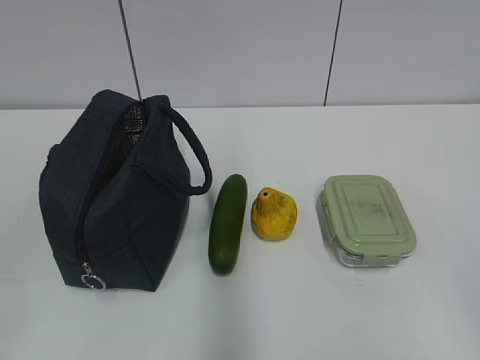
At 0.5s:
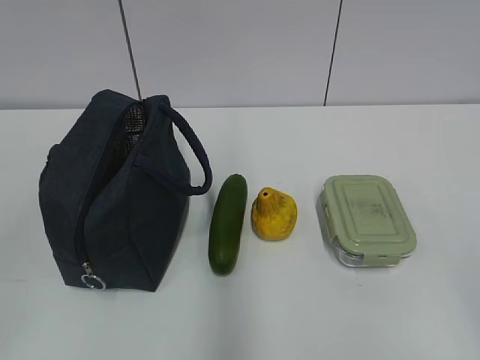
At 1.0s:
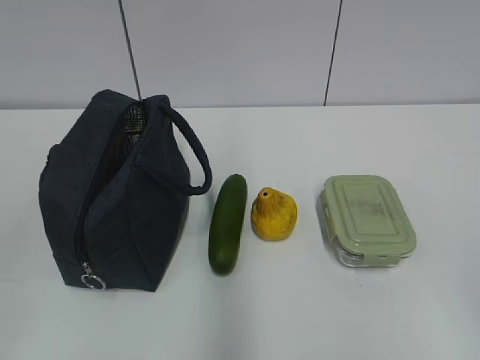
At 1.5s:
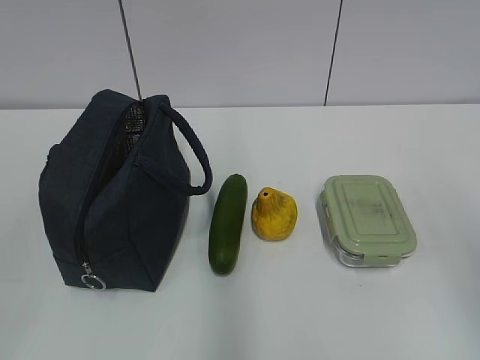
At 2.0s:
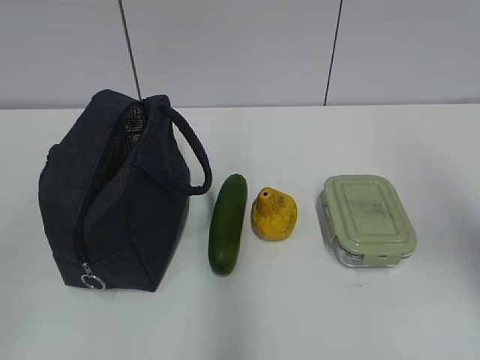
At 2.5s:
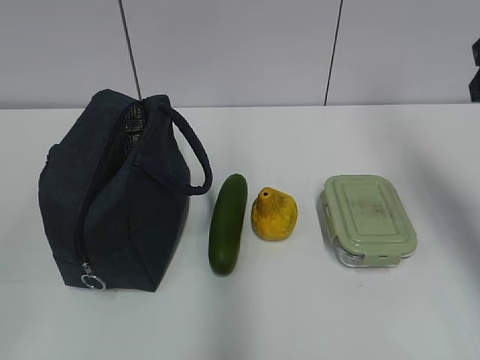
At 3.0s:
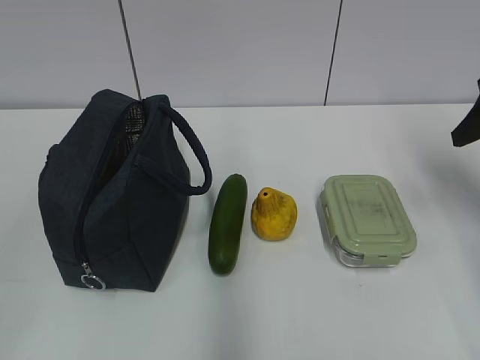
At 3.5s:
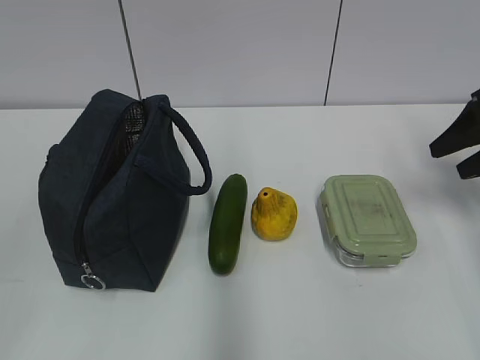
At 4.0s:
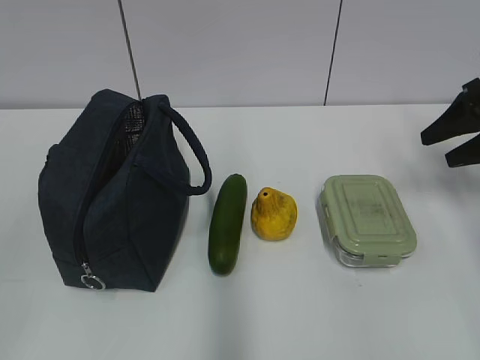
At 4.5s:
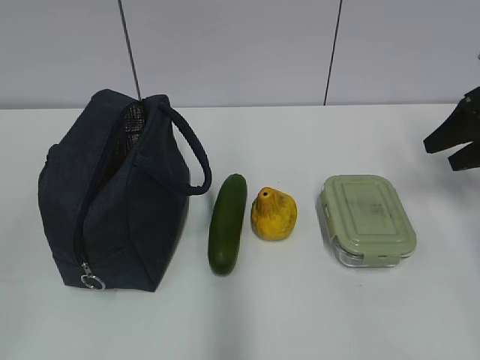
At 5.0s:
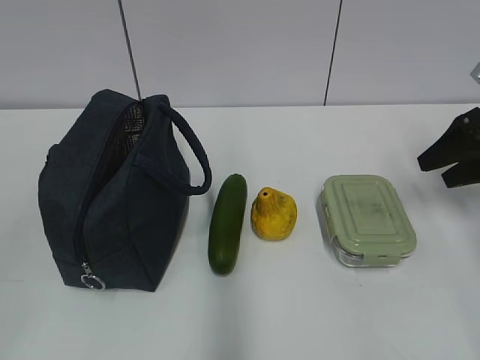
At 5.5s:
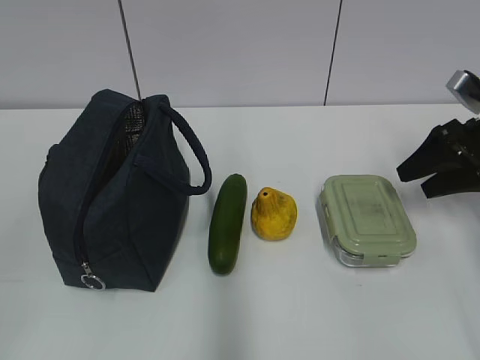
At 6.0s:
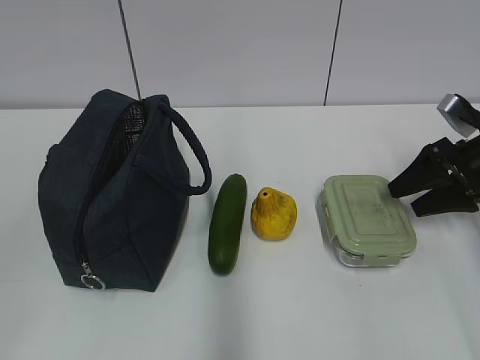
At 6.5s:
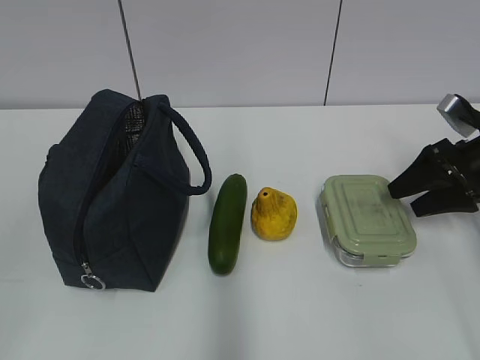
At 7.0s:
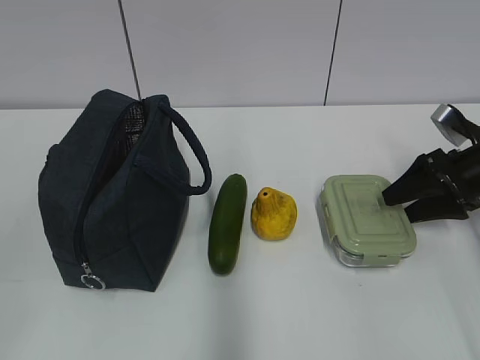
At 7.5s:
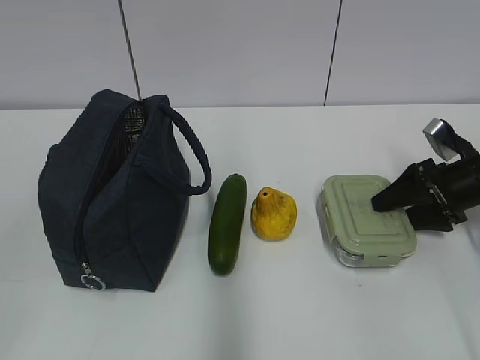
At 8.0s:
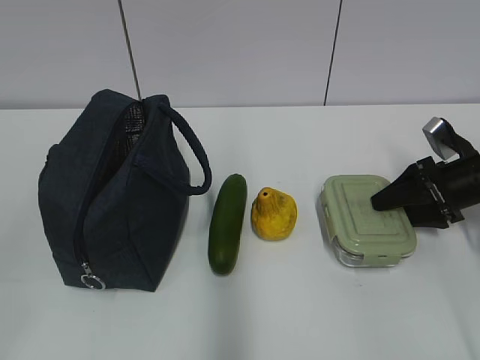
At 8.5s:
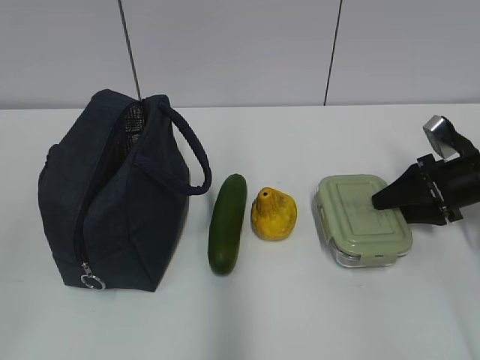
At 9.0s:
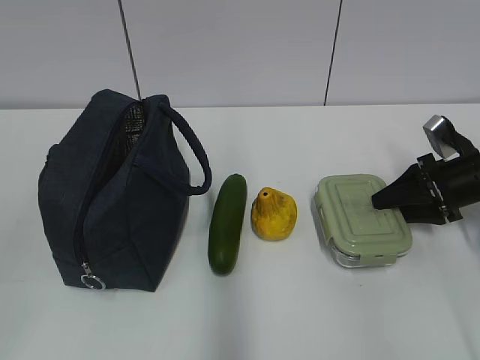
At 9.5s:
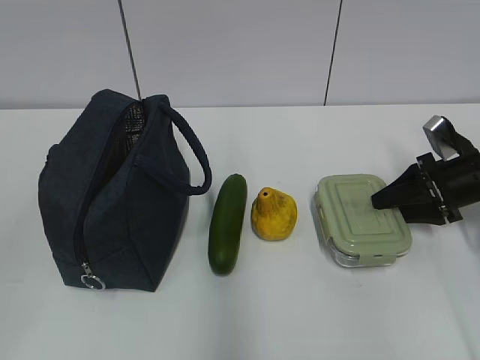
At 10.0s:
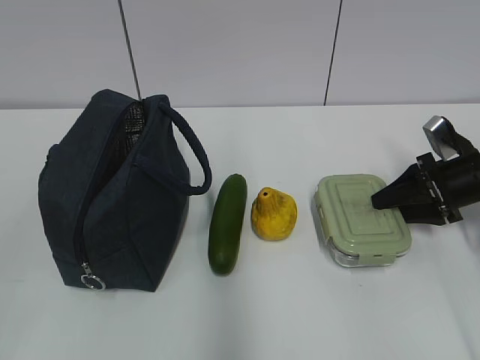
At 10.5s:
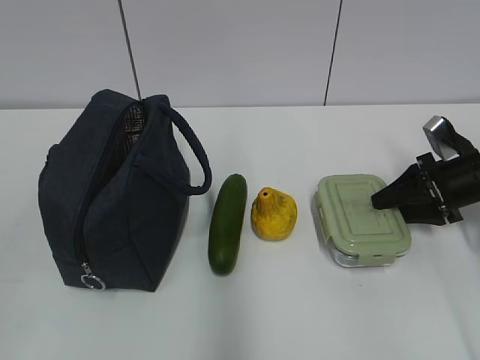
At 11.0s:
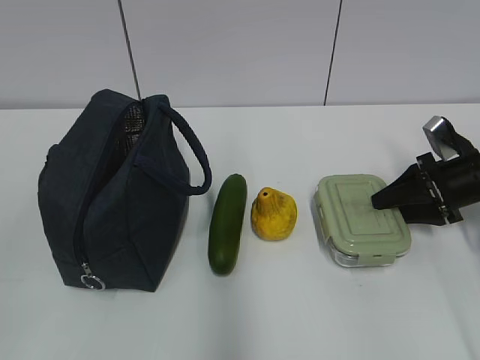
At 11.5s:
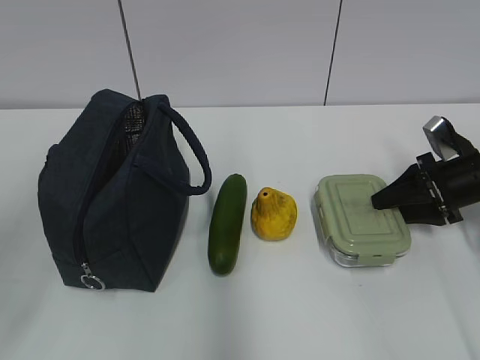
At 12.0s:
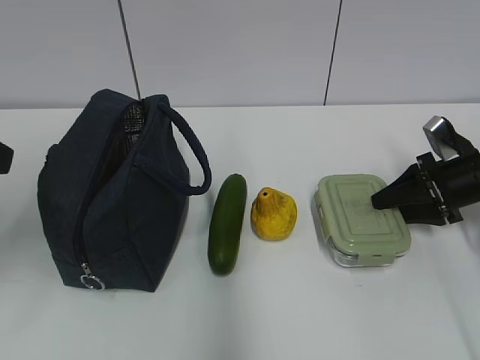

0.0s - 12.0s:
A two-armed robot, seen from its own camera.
Step, 0.0s - 11.5s: Grab the lunch box with your right hand.
2.0s - 4.0s: The right gripper goes some 25 cm forward, downward and to the right.
4.0s - 6.0s: The right gripper heads downward, covering approximately 5 cm.
6.0s - 8.0s: The right gripper shifts by about 5 cm.
8.0s - 10.0s: Both grippers stay put.
10.0s - 12.0s: The left gripper moves forward, some 20 cm.

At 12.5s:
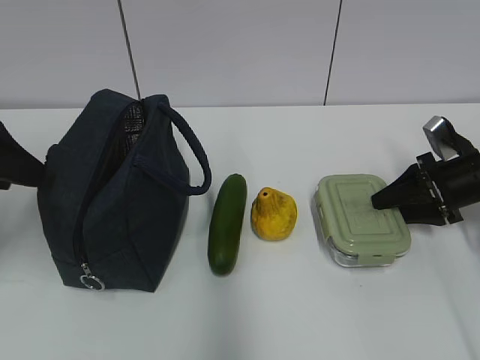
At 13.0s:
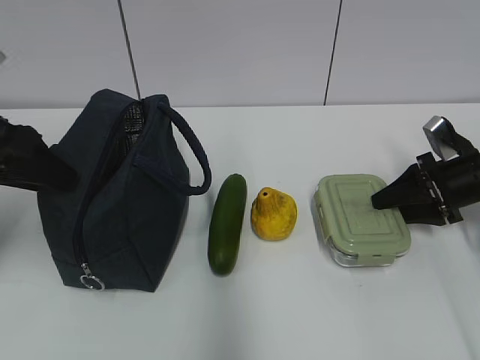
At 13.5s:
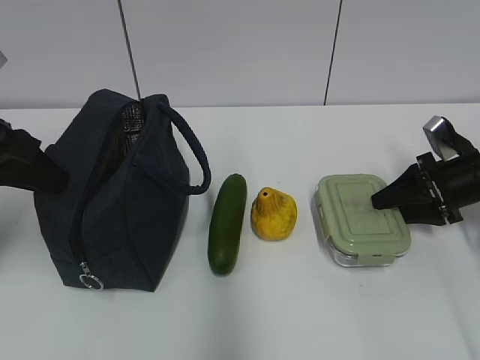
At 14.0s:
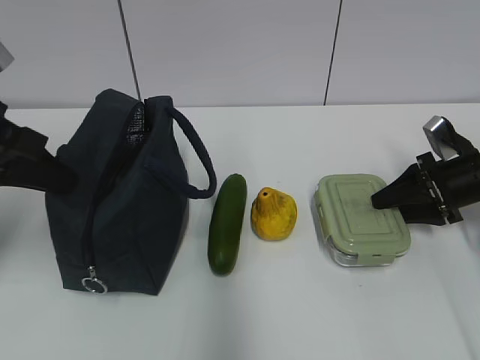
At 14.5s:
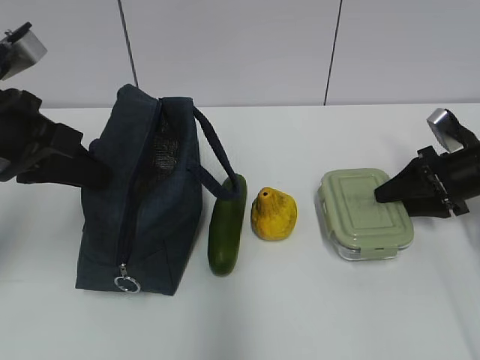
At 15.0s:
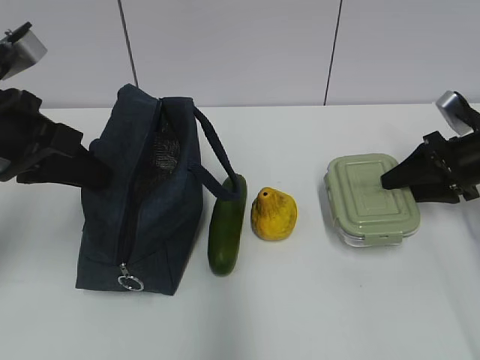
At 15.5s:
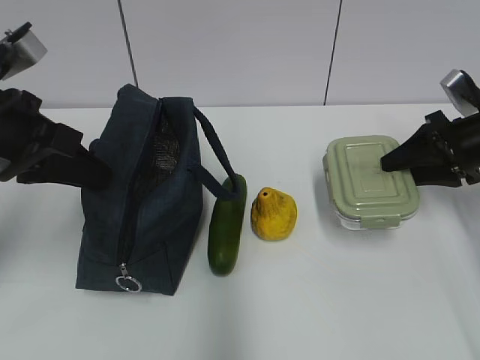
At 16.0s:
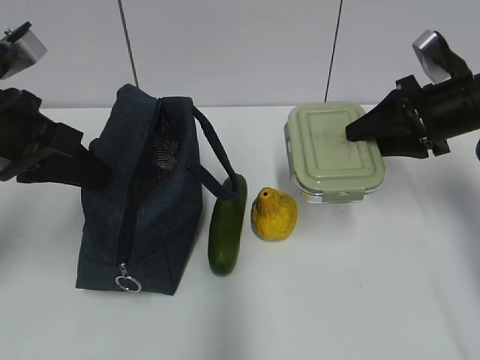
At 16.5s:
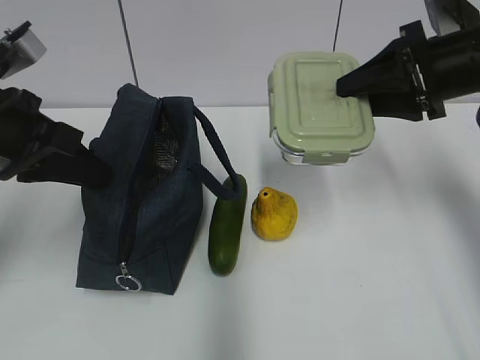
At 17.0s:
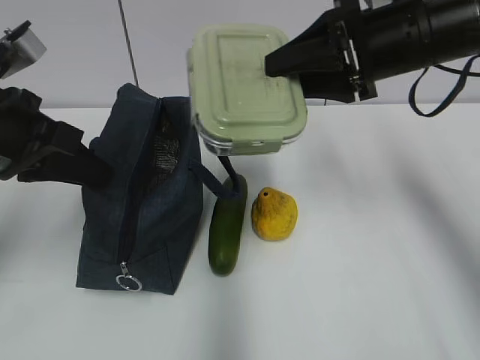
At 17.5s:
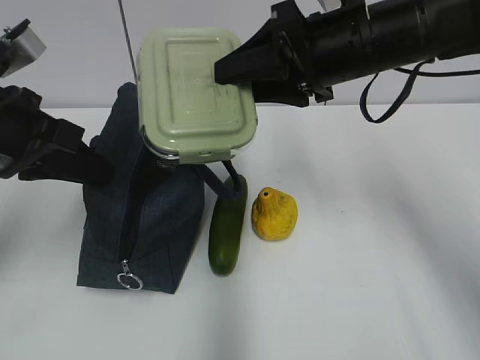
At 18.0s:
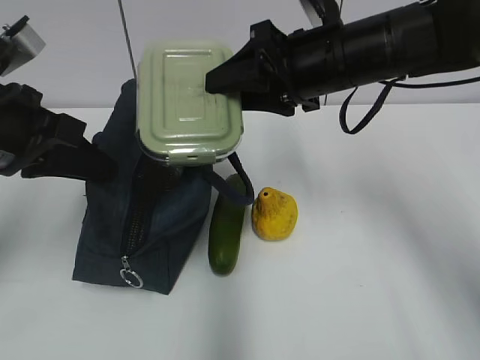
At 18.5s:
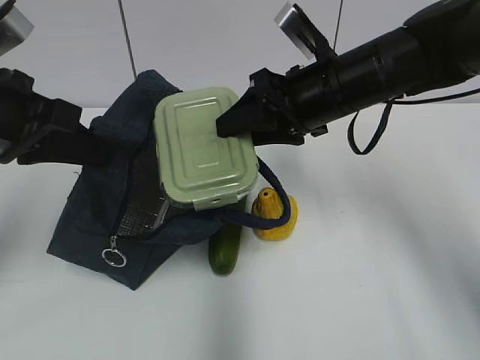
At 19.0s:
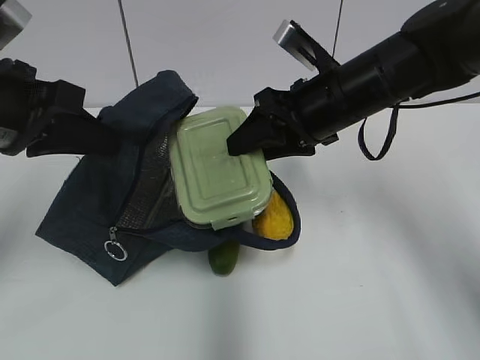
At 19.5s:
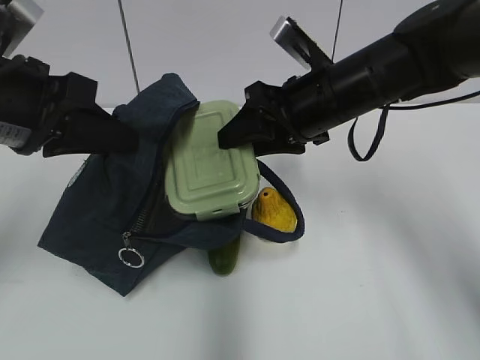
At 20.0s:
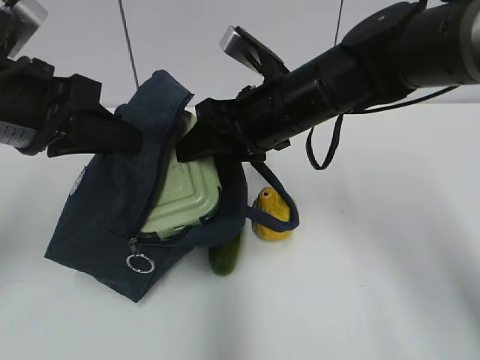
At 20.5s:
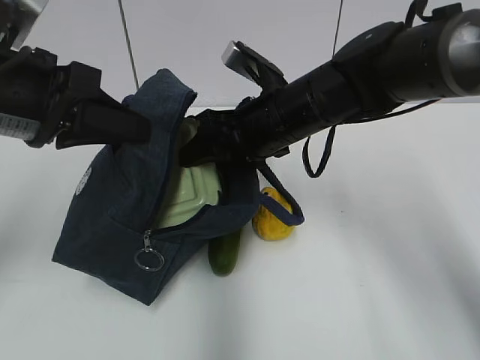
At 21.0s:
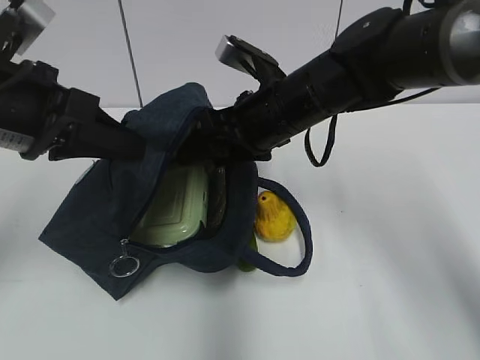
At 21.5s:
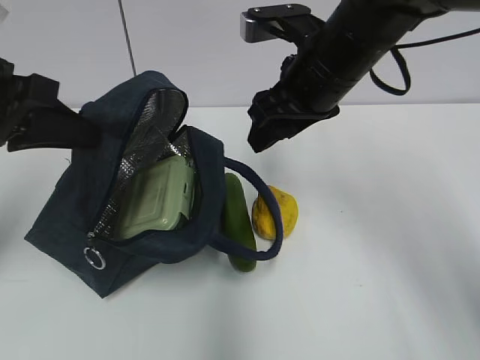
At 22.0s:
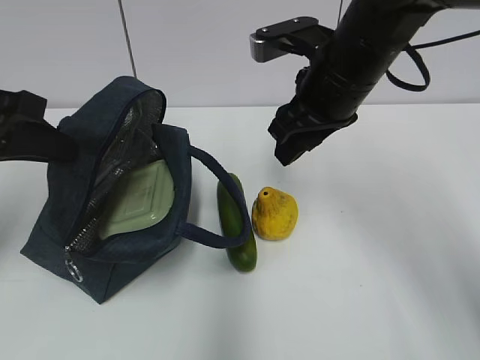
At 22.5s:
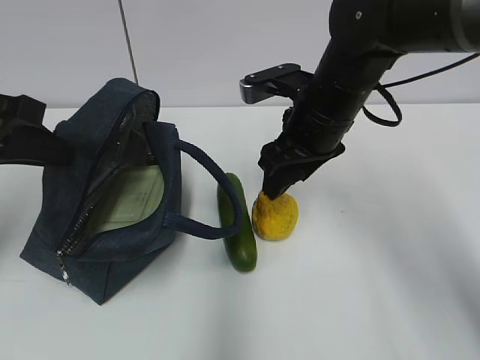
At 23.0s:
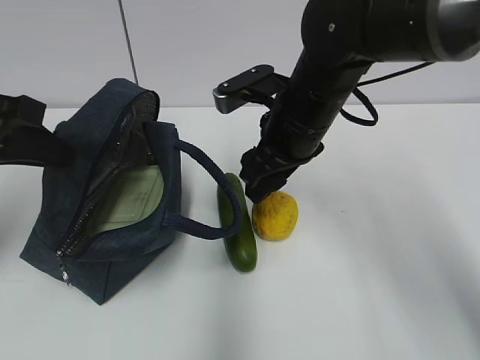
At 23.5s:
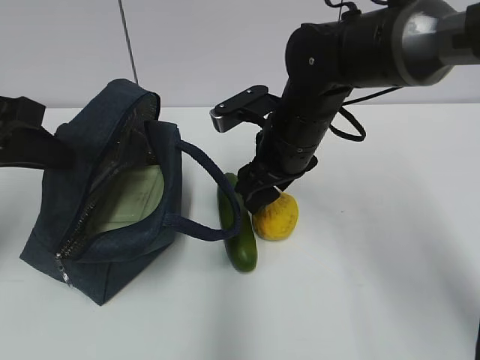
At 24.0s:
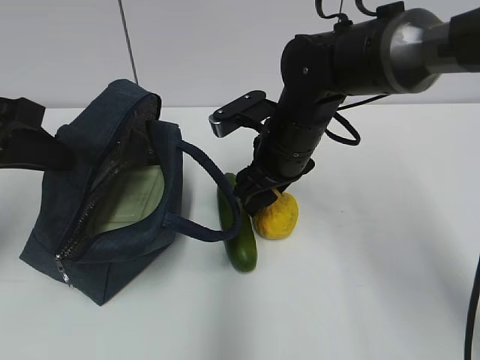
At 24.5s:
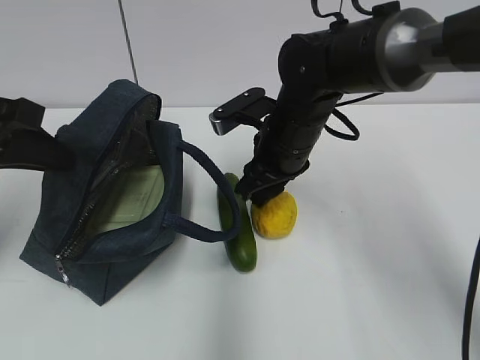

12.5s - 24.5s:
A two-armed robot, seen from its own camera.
Step, 12.5s - 19.0s: Grab the lunch bag with your left hand.
Step, 19.5s - 21.0s: Place it into the bag with your right hand.
12.5s - 14.5s: The left gripper goes about 5 cm to the right, and closes.
14.5s - 16.5s: The right gripper travels upward and to the left by approximately 20 cm.
16.5s - 18.5s: The right gripper shifts about 15 cm to the left.
18.5s - 20.5s: The right gripper heads to the left, covering some 5 cm.
20.5s - 22.5s: The left gripper heads to the left, covering about 5 cm.
22.5s - 24.5s: The right gripper changes place by approximately 5 cm.

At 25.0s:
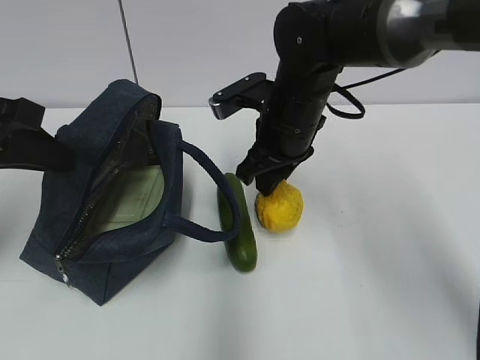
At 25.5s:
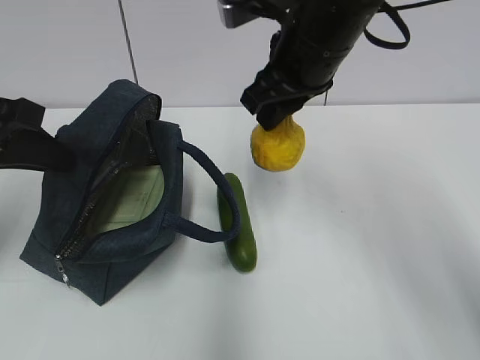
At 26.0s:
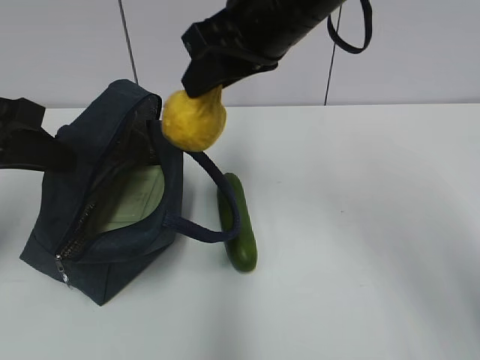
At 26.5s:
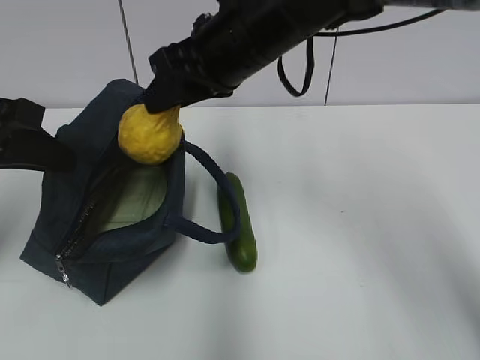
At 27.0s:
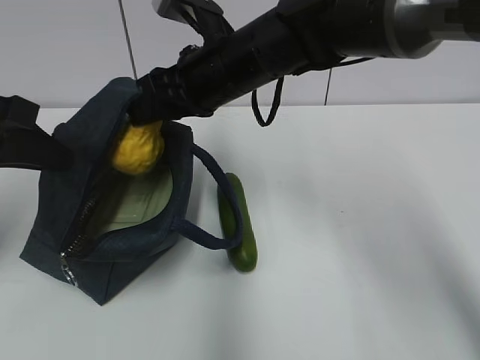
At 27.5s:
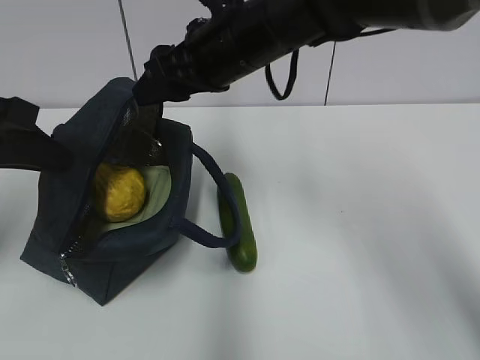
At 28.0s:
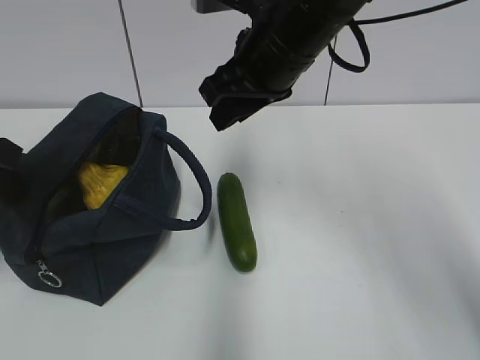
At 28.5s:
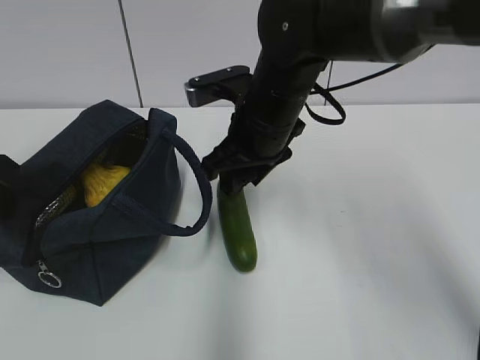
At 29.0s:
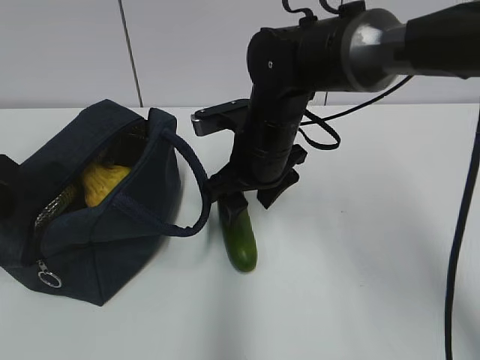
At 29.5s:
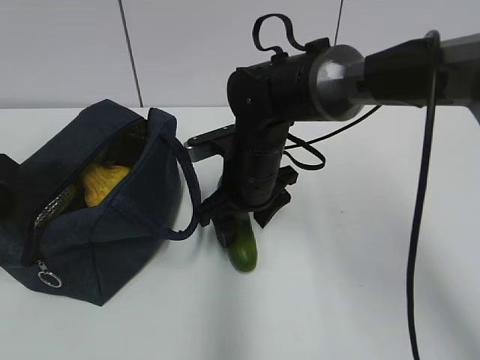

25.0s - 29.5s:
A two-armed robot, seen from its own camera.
Step, 25.0s - 27.5s: Place it into the bag with your right hand.
25.0s - 27.0s: The right gripper shifts about 10 cm to the left and upward.
27.0s - 29.5s: The right gripper goes roughly 10 cm downward, and opens its fingers.
